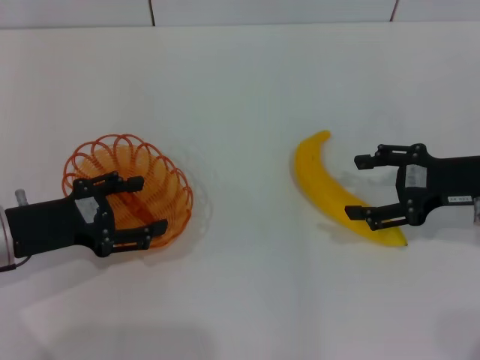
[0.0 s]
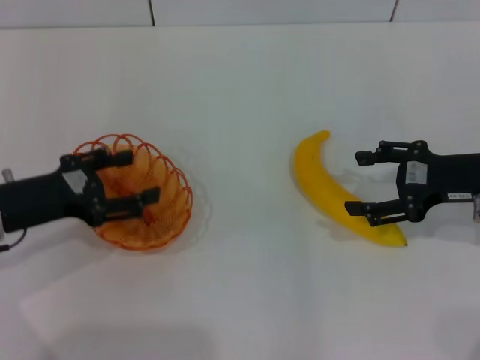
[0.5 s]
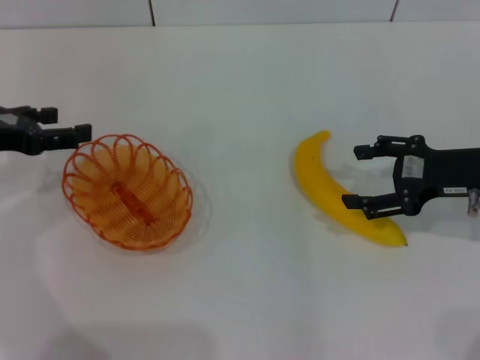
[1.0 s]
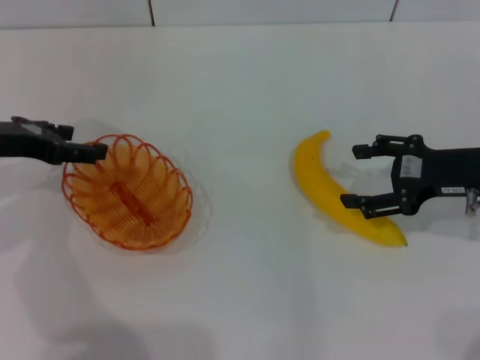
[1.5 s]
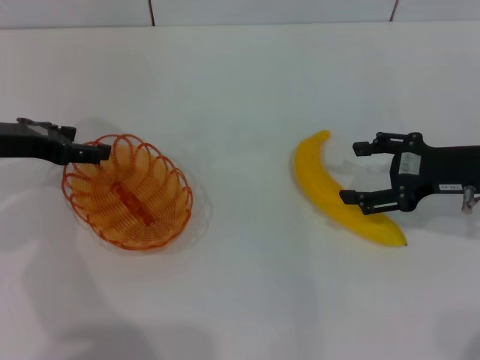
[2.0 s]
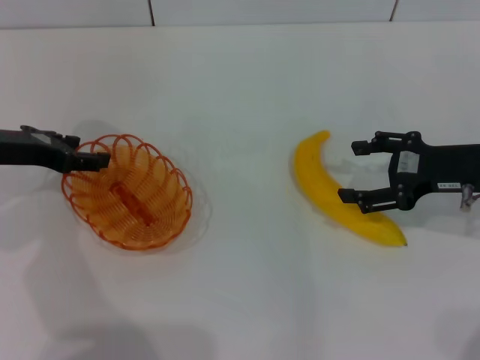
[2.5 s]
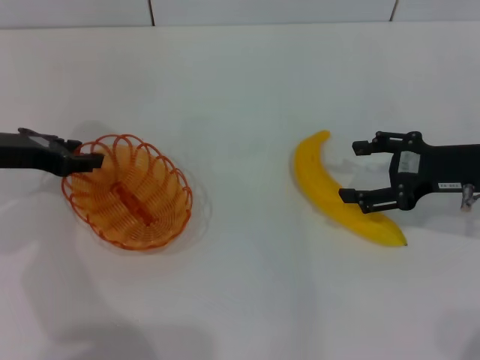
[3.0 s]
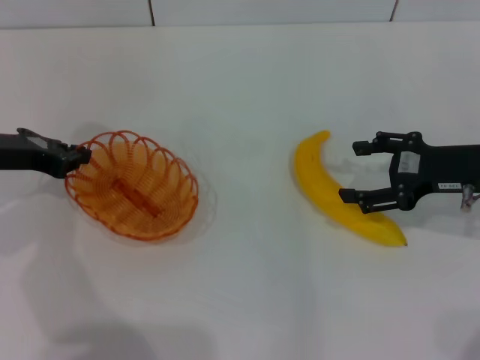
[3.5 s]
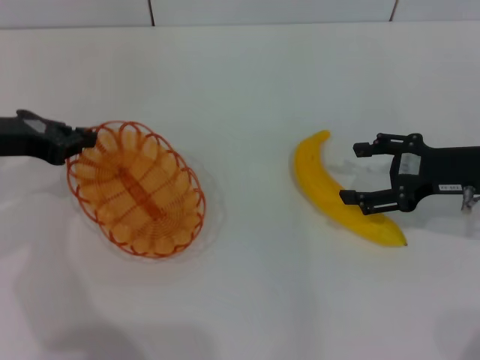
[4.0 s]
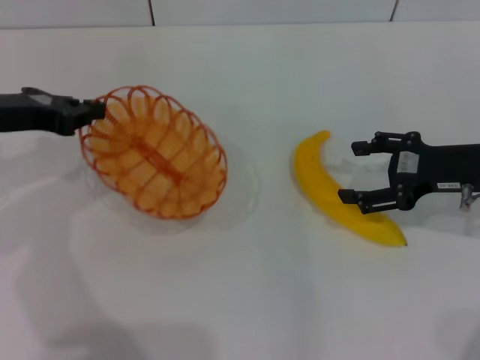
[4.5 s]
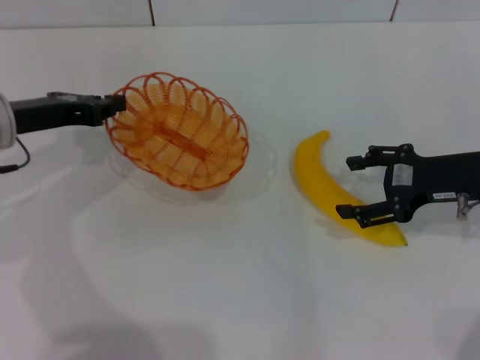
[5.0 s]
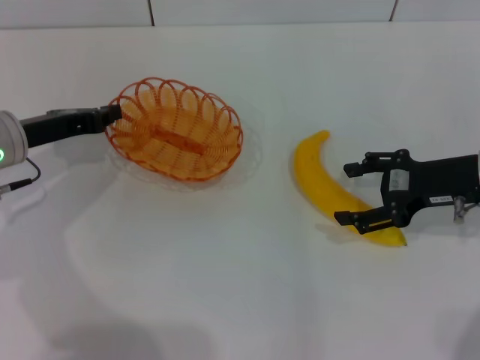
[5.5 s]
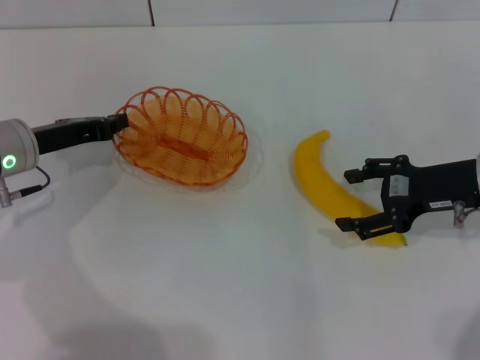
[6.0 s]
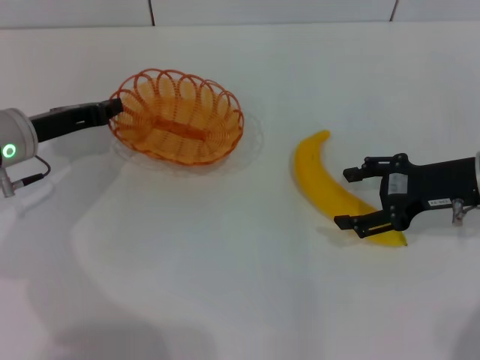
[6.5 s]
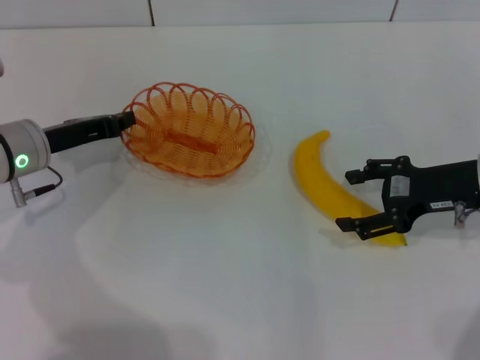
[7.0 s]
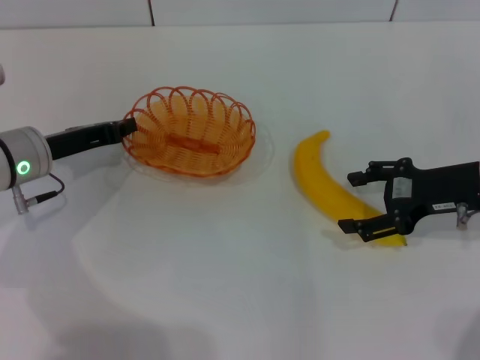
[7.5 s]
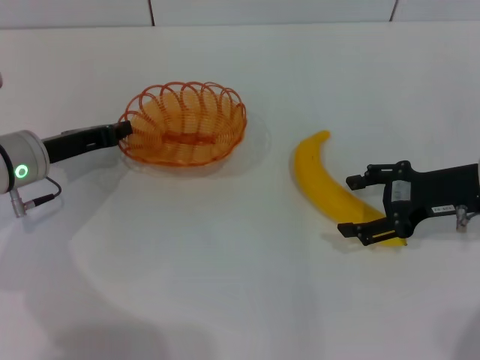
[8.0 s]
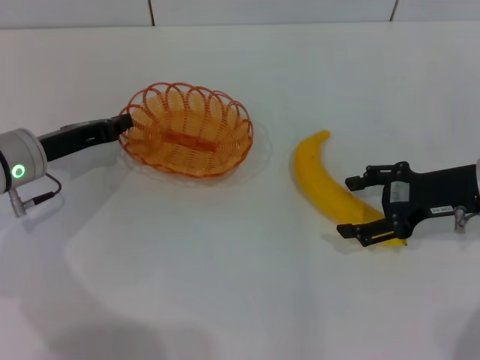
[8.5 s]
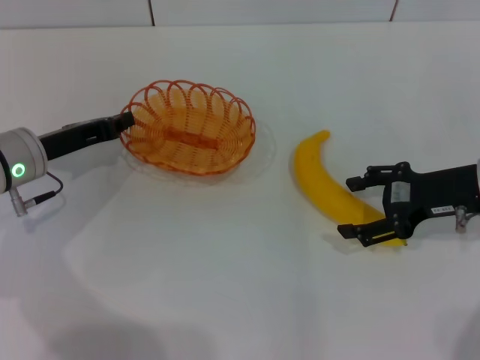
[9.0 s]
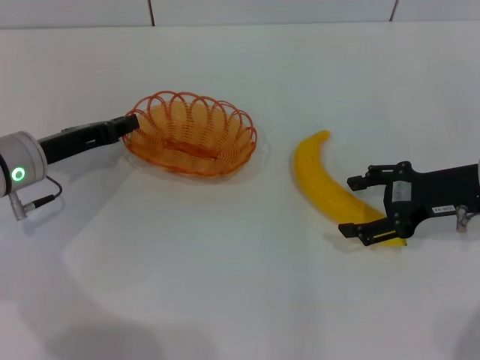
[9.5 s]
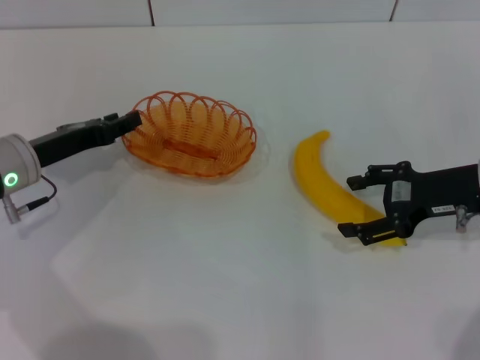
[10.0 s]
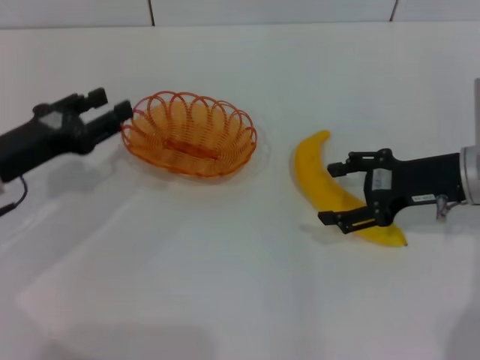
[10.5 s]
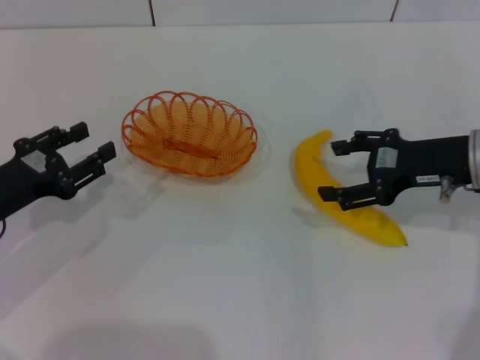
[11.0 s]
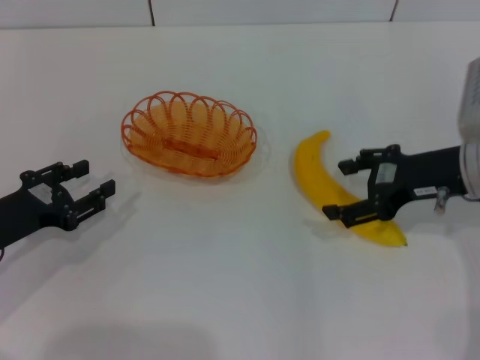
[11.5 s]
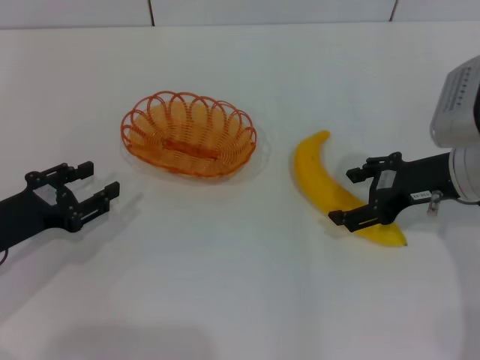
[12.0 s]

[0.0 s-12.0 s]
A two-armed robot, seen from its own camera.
Step, 0.0 to 4.0 s: Pick up the basket with the left gripper.
Step, 4.5 to 10.0 s: Place the basket in the center of view with the left gripper.
0.0 to 2.0 s: The left gripper is displaced forward and upward by about 10 cm.
2.0 to 4.0 s: The left gripper closes up.
4.0 to 6.0 s: The left gripper goes about 5 cm downward.
6.0 to 8.0 s: The grippers move only a little.
8.0 to 10.0 s: The left gripper opens up.
10.0 to 12.0 s: The left gripper heads backward, covering some 10 cm.

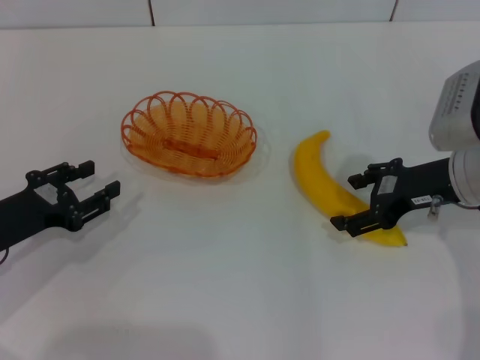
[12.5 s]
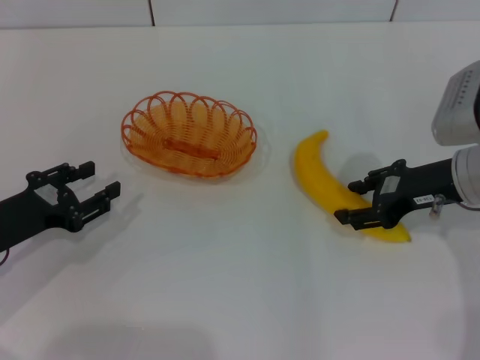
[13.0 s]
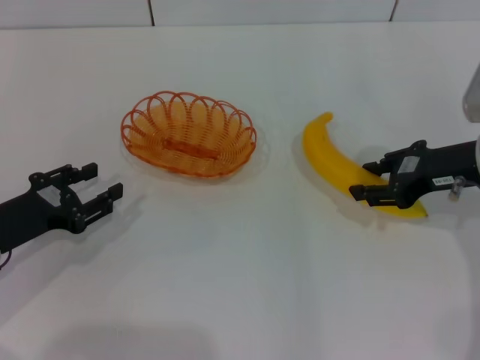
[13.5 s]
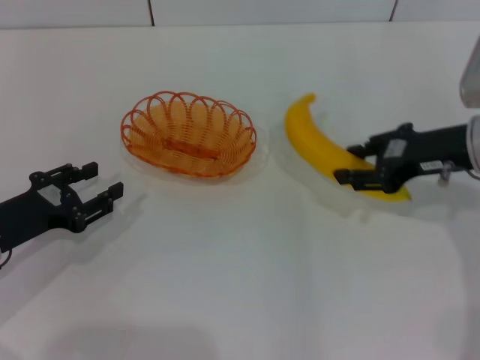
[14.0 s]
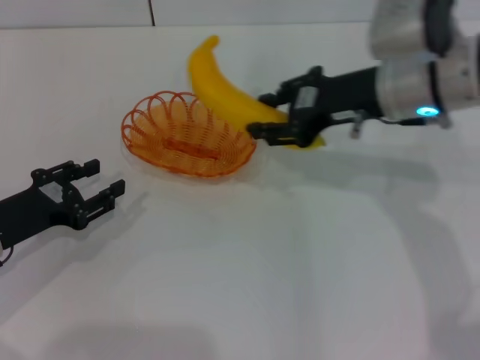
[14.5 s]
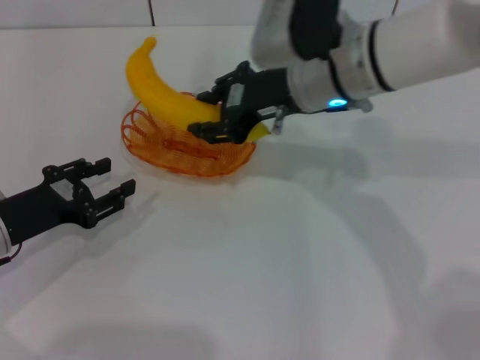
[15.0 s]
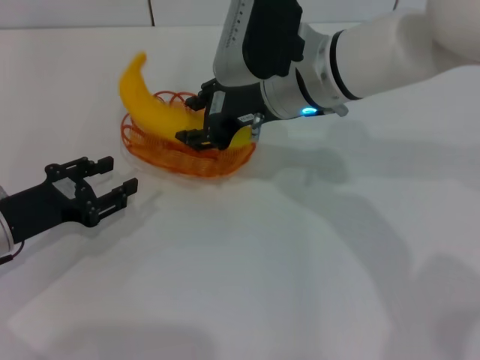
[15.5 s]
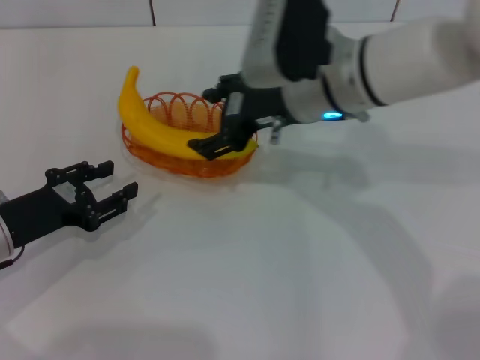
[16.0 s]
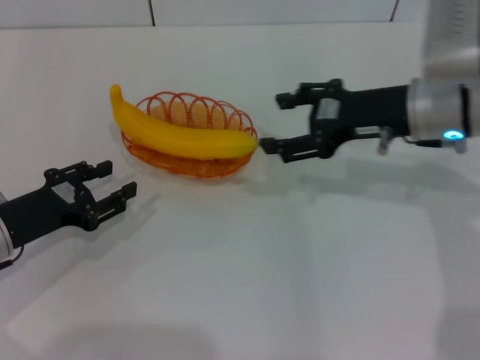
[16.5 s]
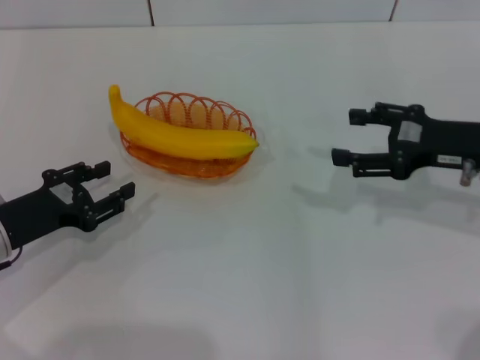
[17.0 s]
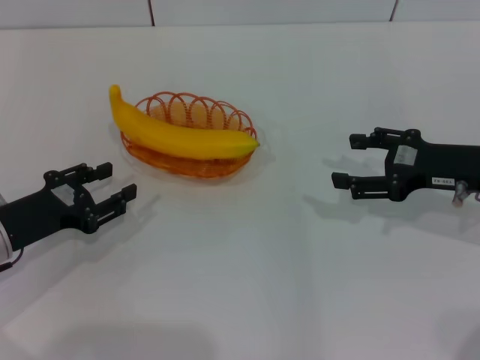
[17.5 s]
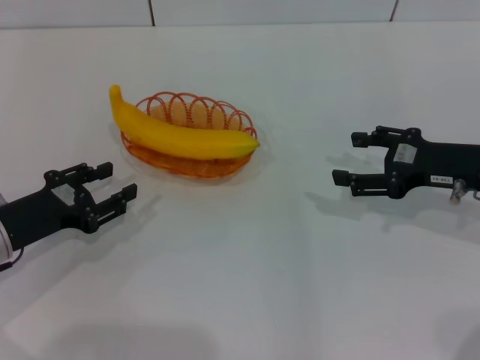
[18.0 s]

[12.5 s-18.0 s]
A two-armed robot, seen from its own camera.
Step, 14.5 to 16.5 s: Place the banana into the basket with the right gripper.
12.5 to 14.5 s: The right gripper is displaced to the left and upward by approximately 10 cm, and closes its fingers.
14.5 to 16.0 s: The right gripper shifts approximately 10 cm to the left, and opens its fingers.
16.0 to 18.0 s: The right gripper heads to the right, covering approximately 20 cm.

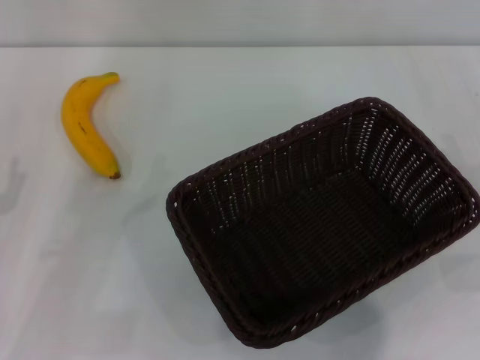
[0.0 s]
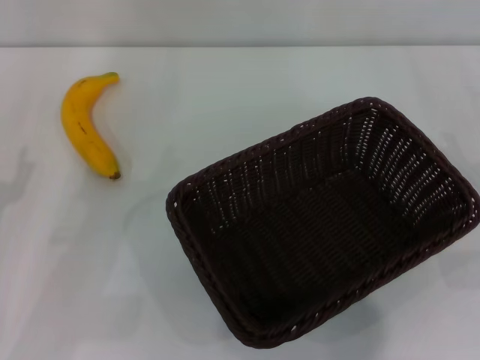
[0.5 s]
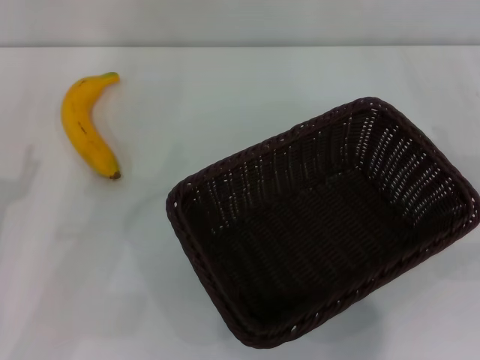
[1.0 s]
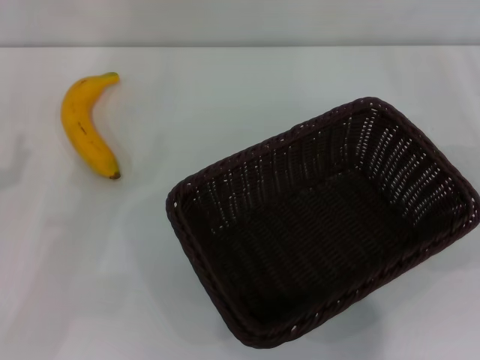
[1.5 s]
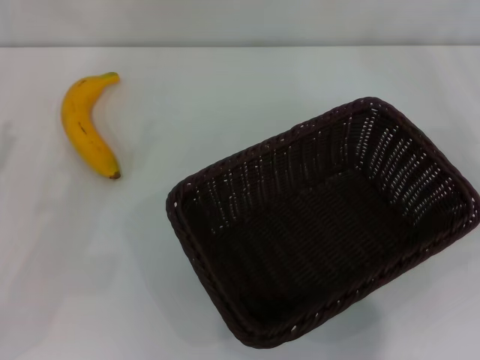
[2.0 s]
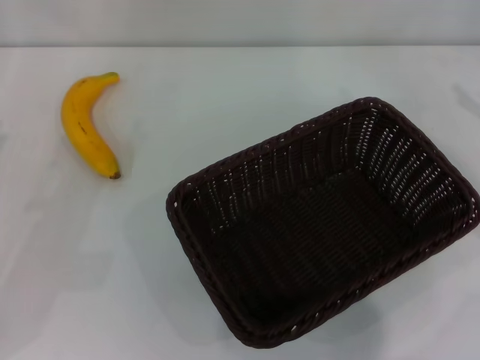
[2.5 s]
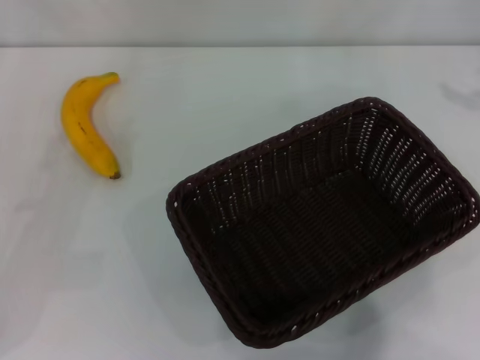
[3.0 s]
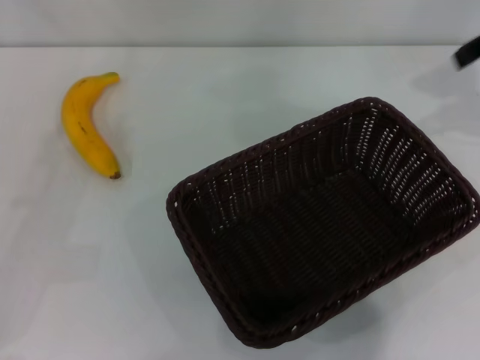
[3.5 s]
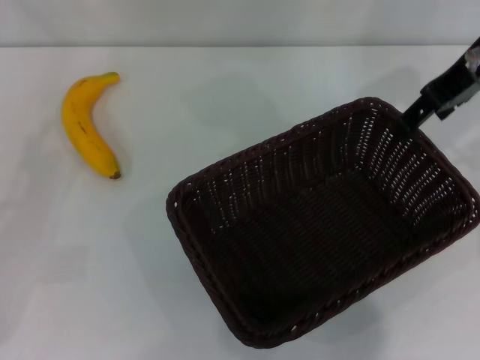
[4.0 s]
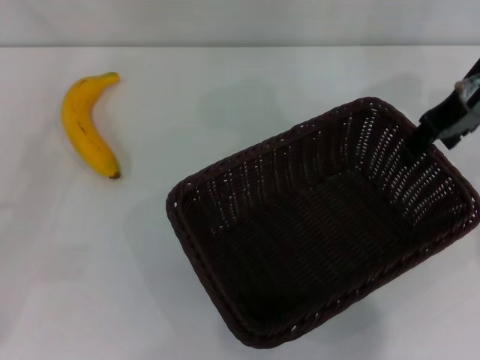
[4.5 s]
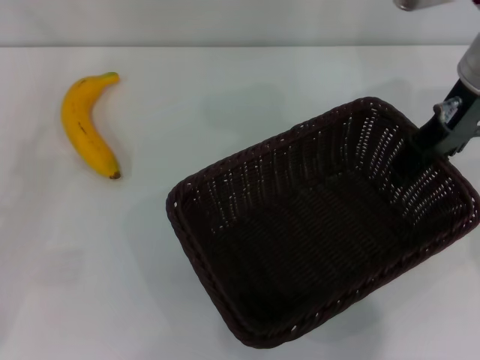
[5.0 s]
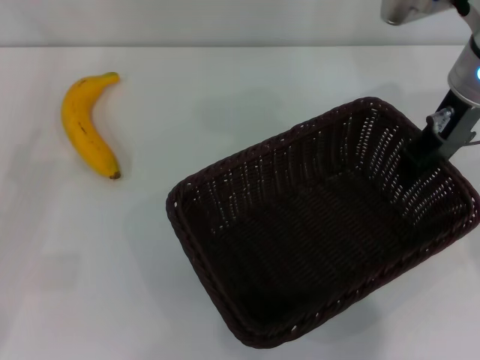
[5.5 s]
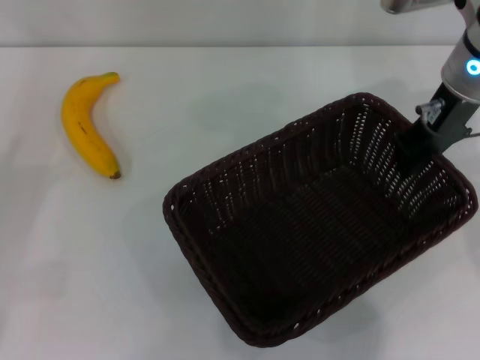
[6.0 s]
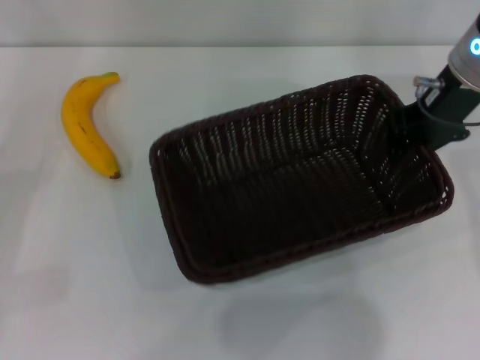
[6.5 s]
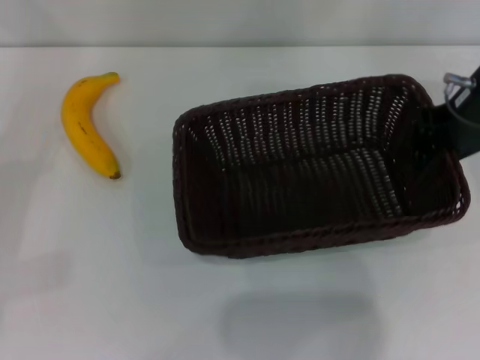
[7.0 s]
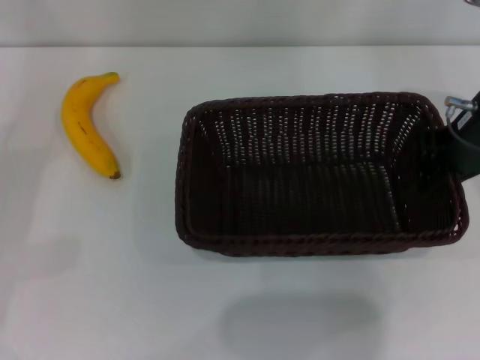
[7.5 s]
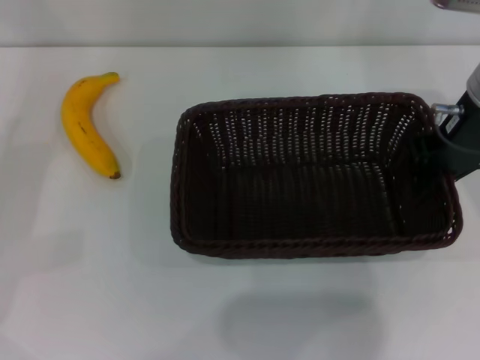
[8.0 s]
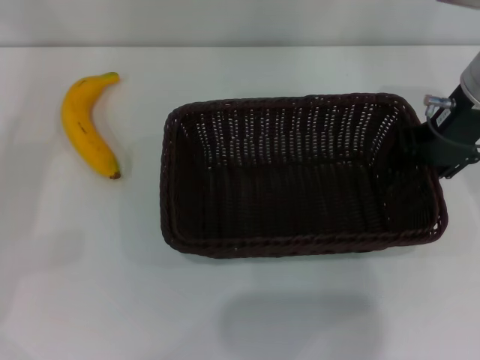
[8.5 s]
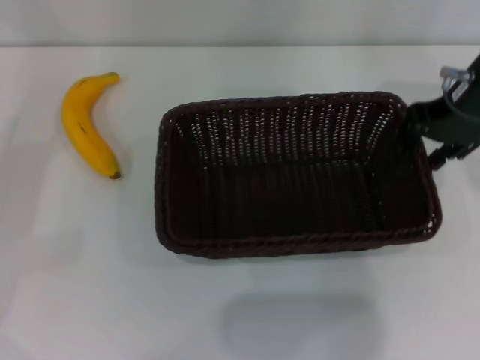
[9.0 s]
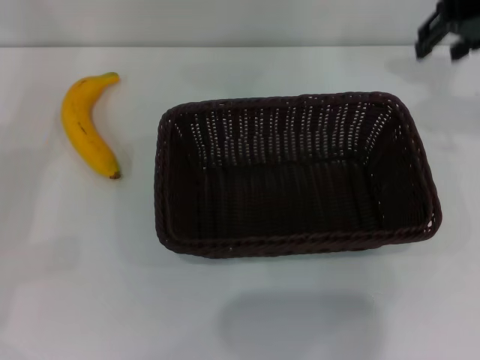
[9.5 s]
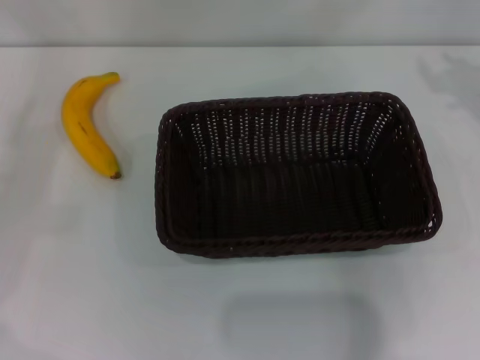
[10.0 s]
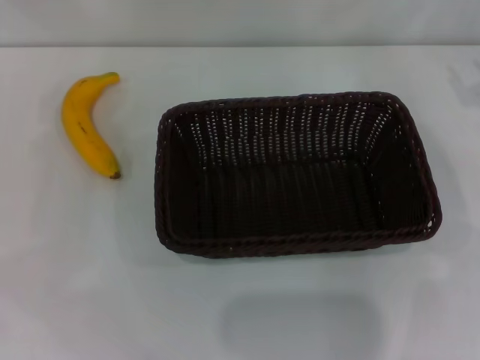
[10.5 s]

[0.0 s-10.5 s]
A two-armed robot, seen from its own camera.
Step, 0.0 to 6.5 s: Pick up the dark basket with the right gripper.
Step, 7.0 to 9.0 s: Place the dark basket in the center of view with the right gripper.
2.0 to 4.0 s: The right gripper is displaced to the left, upward and forward by some 25 cm.
4.0 to 6.5 s: The right gripper is displaced downward by approximately 5 cm, and closes its fingers.
6.5 to 8.5 s: The grippers make only small movements.
8.5 to 10.5 s: The left gripper travels upward and forward by about 15 cm. Meanwhile the right gripper is displaced to the right by approximately 15 cm.
